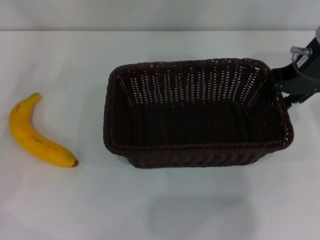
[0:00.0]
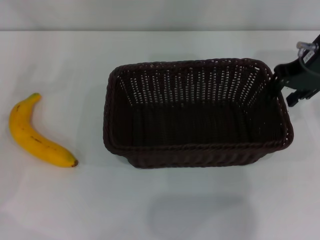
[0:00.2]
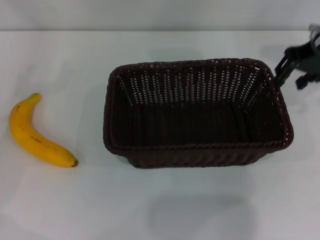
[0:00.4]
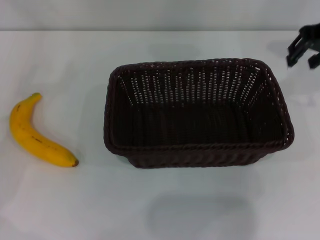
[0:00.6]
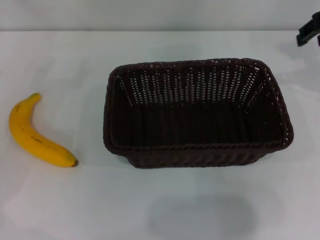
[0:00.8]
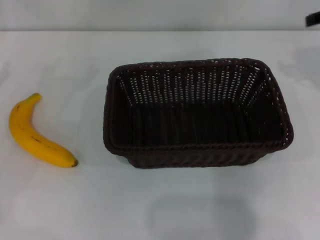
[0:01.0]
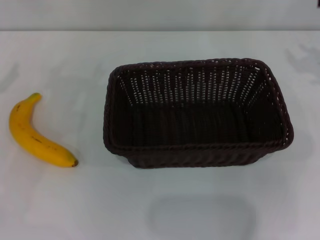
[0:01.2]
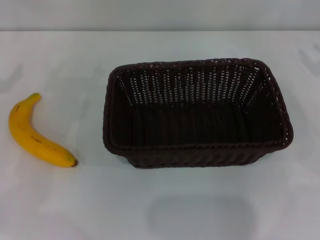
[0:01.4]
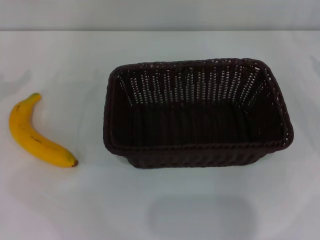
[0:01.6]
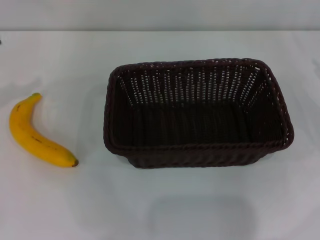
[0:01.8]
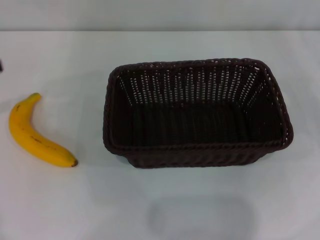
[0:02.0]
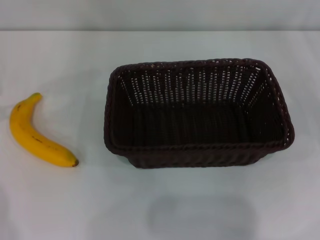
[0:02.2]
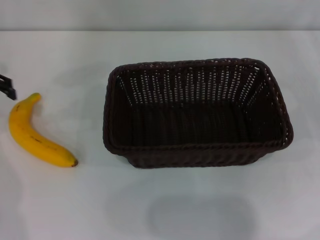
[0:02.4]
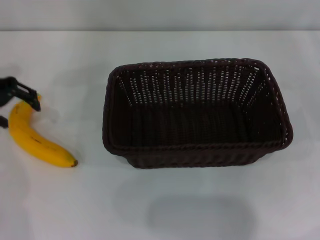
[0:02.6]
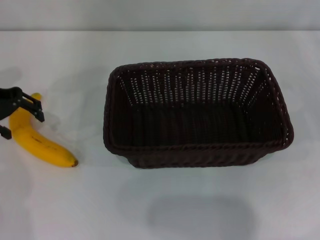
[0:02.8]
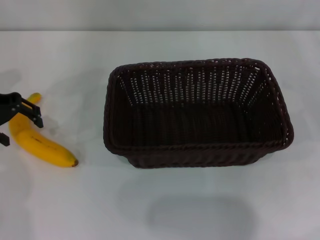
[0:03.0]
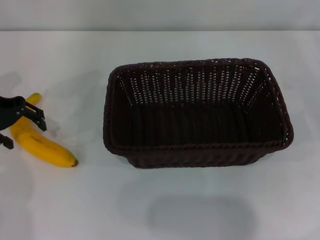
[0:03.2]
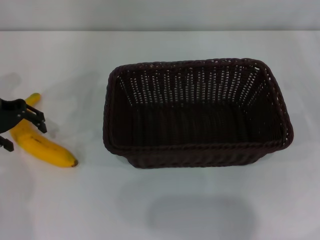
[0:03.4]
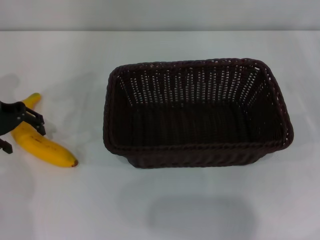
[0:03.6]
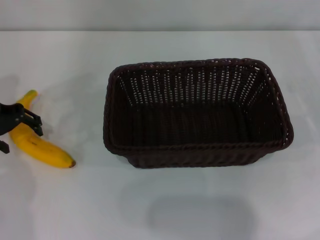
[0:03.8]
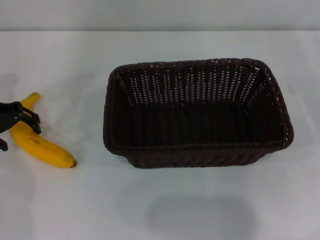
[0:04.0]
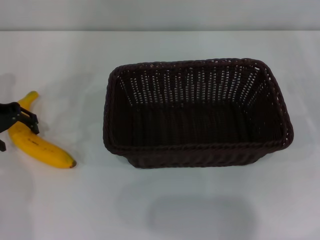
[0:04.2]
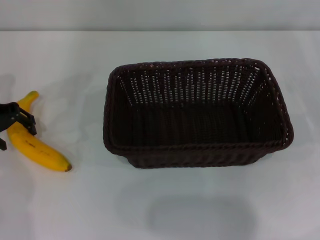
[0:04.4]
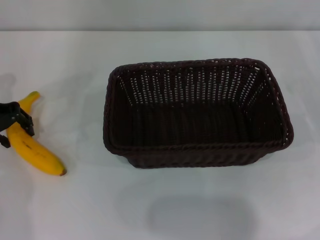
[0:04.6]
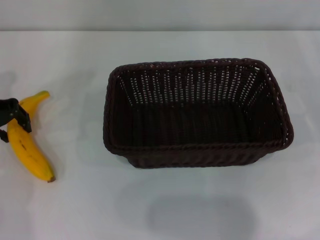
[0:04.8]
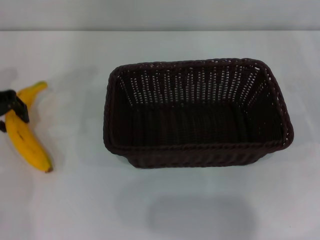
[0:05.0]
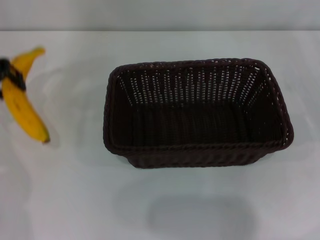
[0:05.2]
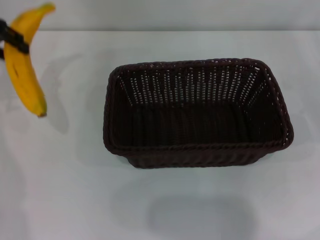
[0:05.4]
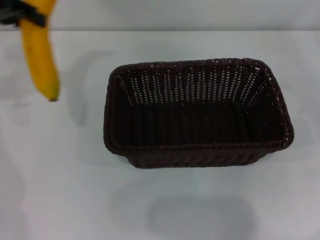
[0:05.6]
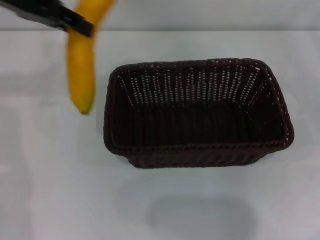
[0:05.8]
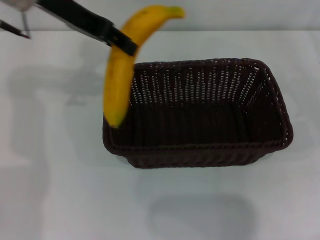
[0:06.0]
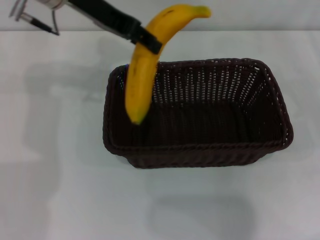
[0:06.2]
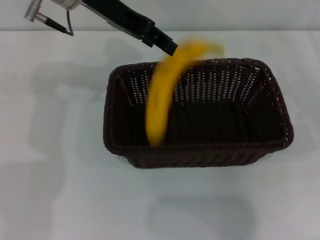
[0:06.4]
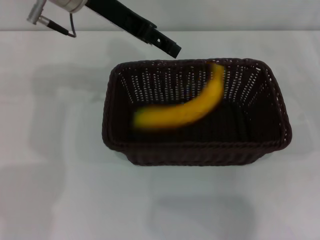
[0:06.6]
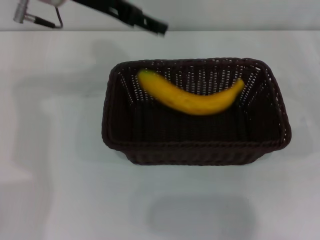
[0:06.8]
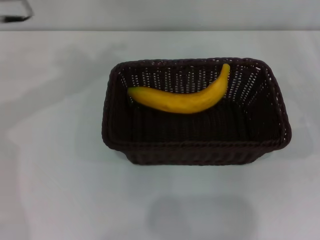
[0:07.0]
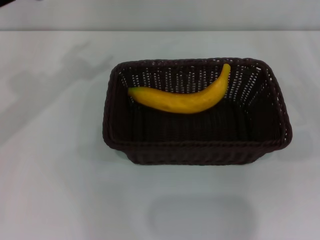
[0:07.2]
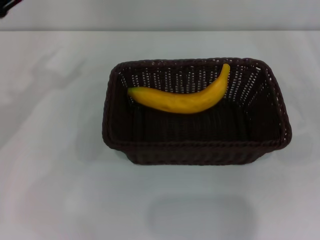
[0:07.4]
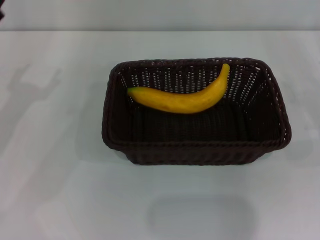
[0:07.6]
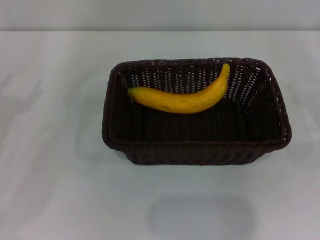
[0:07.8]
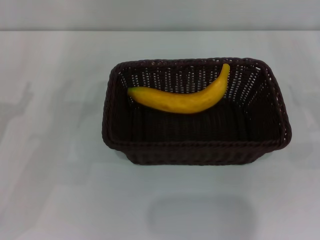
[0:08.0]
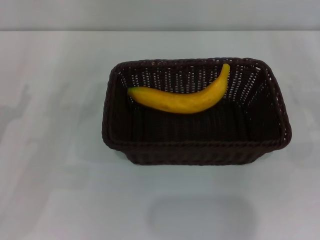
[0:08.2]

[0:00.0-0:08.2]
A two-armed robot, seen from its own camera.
Step, 0:00.4 to 0:05.0: Pick up the banana with the left gripper.
Step, 0:05.2 to 0:06.4: Place the banana into the dark basket with the left gripper.
0:00.0 to 0:01.6: The right gripper shifts roughly 20 cm to the right and downward.
0:01.6 to 0:03.2: The left gripper heads to the right and forward, covering about 10 cm.
0:03.2 to 0:05.0: The left gripper closes up.
0:05.0 to 0:06.6: The left gripper moves to the right and upward, roughly 20 cm.
0:06.6 to 0:08.2: The left gripper moves downward, to the left and backward, some 30 cm, and opens.

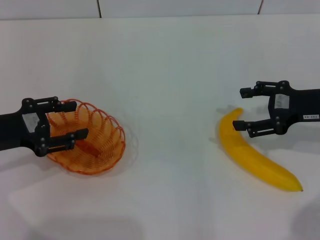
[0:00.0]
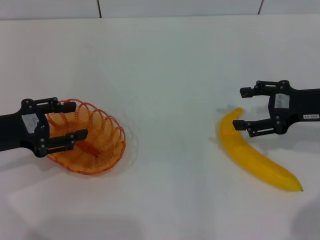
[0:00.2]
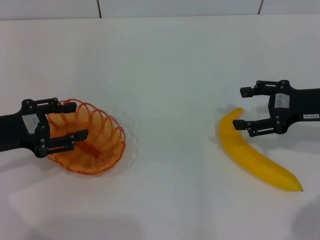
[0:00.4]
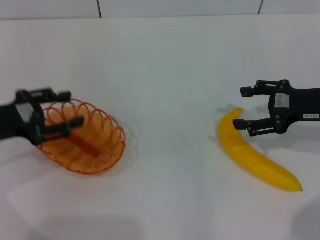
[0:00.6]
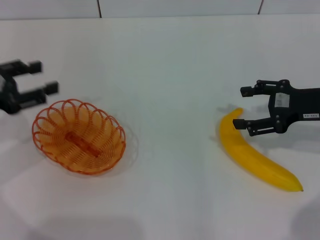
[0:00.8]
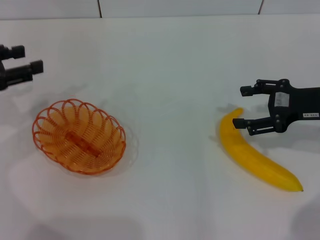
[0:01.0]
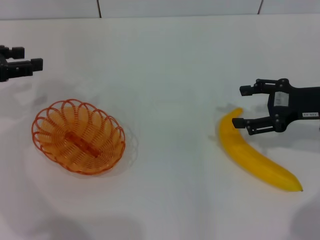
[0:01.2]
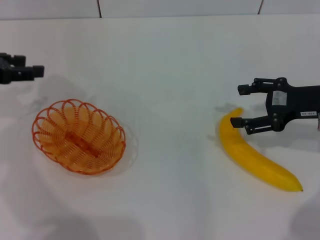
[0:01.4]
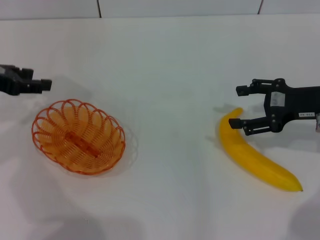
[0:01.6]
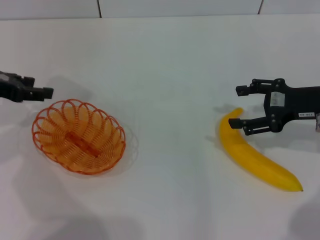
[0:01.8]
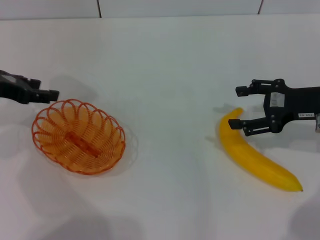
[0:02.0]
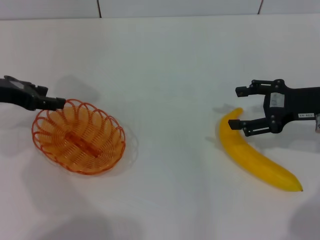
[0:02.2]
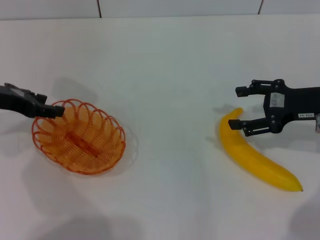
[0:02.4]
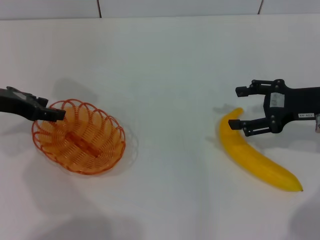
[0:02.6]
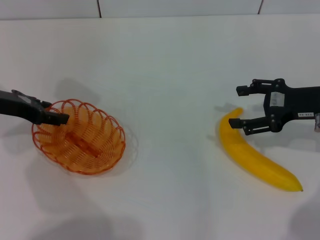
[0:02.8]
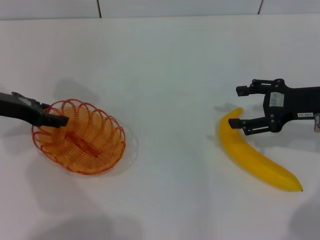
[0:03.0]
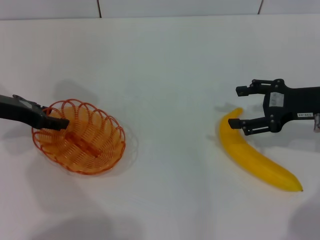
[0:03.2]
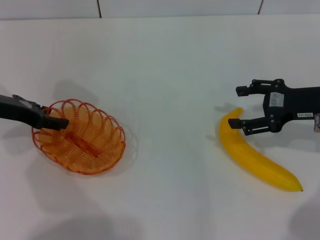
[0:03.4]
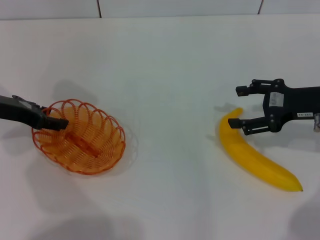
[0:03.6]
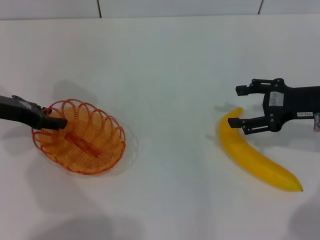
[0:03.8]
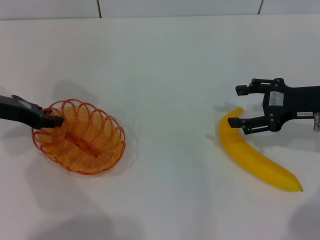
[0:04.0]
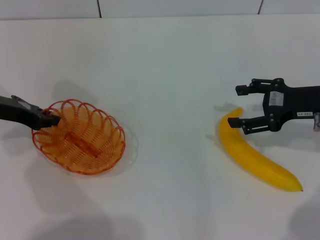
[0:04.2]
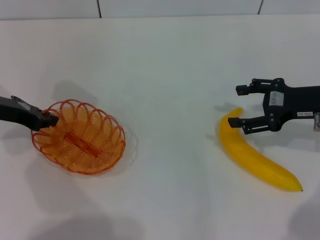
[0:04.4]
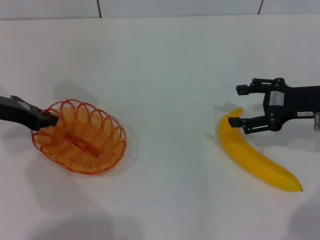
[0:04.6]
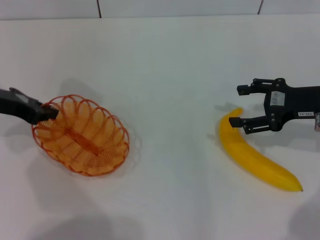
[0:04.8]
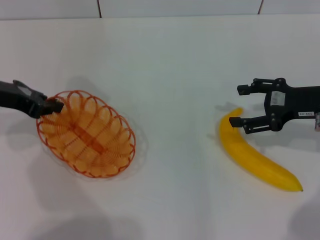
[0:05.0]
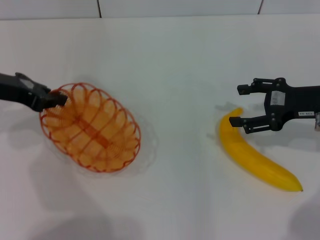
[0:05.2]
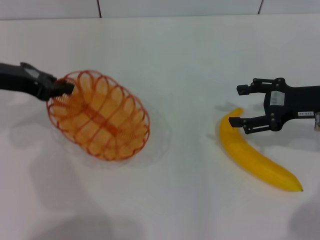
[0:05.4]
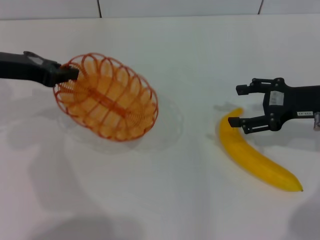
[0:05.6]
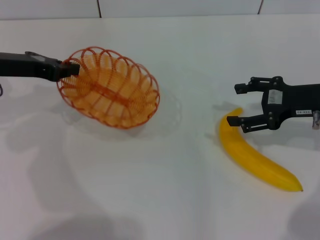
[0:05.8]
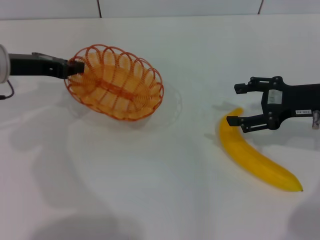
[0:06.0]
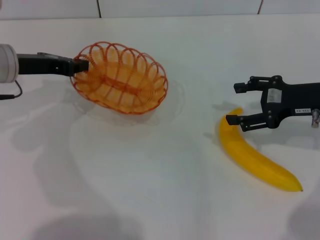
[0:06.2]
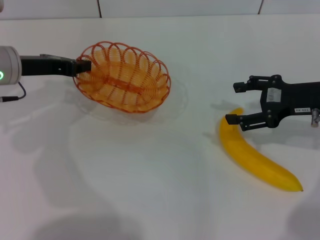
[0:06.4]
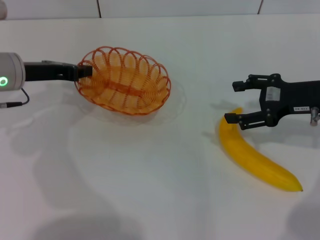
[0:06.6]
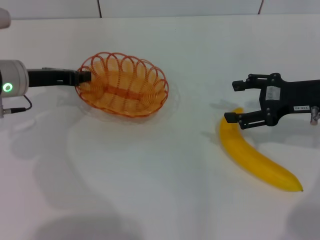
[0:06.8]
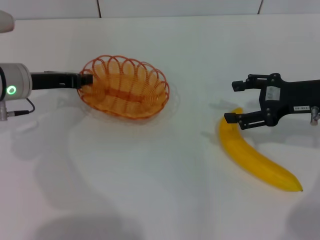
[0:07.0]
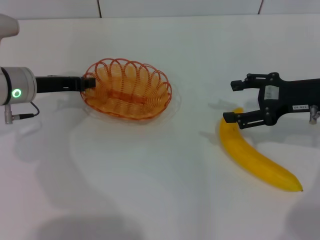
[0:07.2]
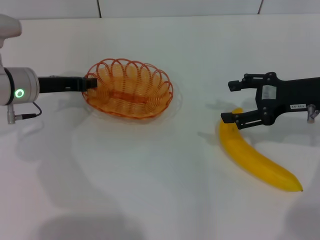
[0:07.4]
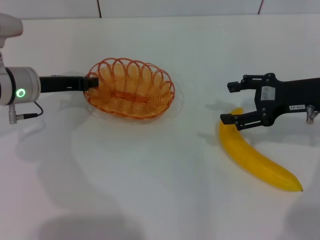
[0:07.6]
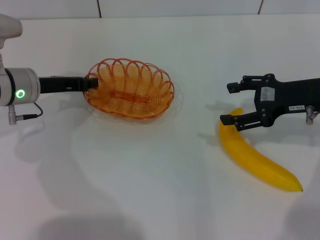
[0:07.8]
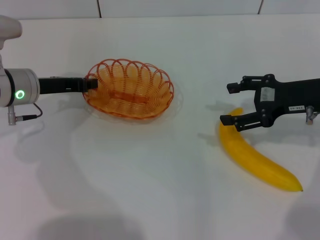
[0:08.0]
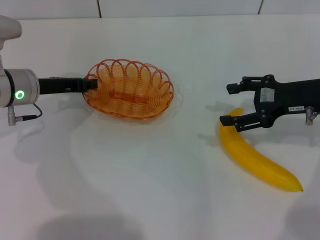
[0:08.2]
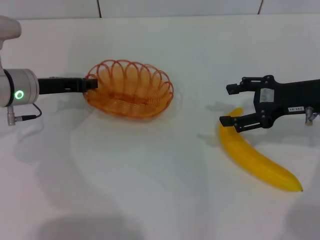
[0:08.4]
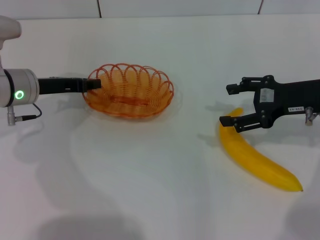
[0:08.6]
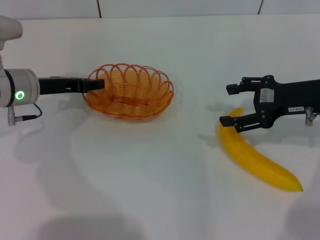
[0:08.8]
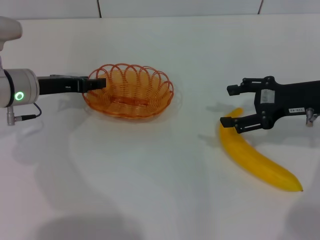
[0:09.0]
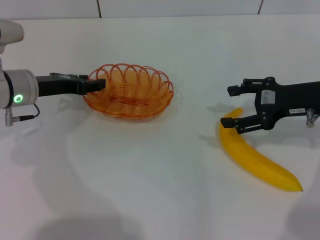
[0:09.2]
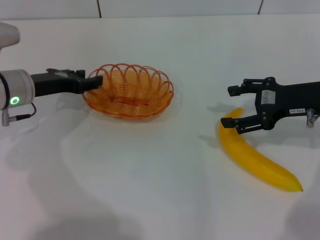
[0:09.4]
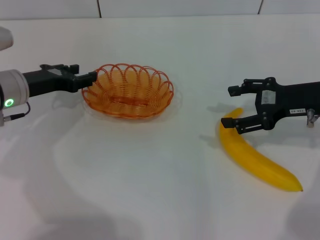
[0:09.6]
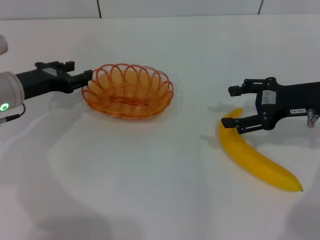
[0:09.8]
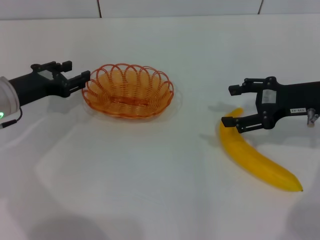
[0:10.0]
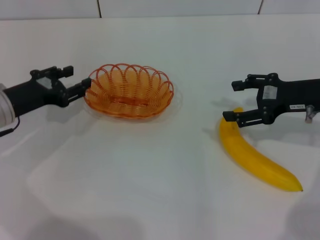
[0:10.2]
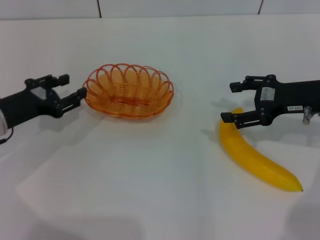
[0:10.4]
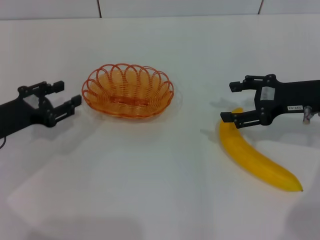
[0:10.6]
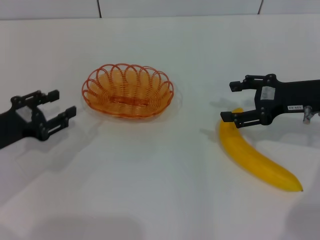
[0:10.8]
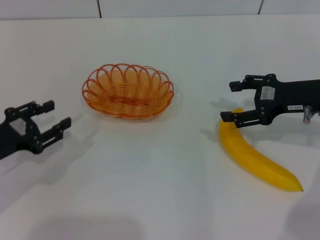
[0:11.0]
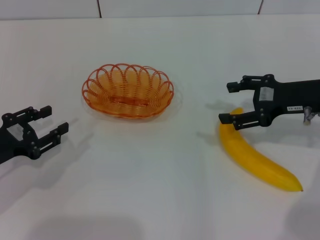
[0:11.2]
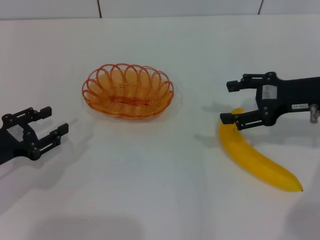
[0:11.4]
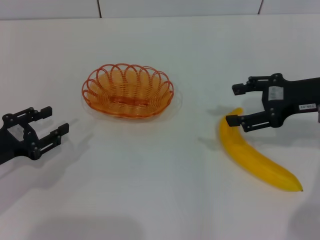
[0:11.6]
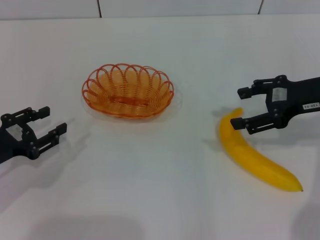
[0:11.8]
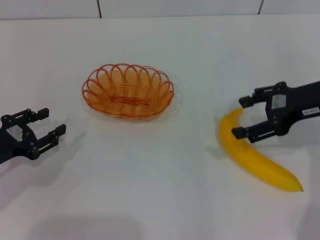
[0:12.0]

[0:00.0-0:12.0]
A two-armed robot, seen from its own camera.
Step, 0:00.0 to 0:05.2: Pick up the basket with the left gripper.
Step, 0:05.6 to 0:09.6: Place the basket in the center of view with the left gripper.
0:00.0 to 0:01.6: The left gripper shifts about 10 cm forward and upward.
0:01.6 to 0:03.0: The left gripper changes place by roughly 5 cm.
0:03.0 to 0:04.4: The left gripper closes its fingers.
0:06.0 to 0:07.6: The left gripper is displaced downward by approximately 5 cm.
0:07.6 to 0:09.0: The left gripper opens its fingers.
0:09.0 to 0:10.4: The left gripper is displaced backward by some 5 cm.
0:10.4 to 0:12.0: The left gripper travels backward by approximately 5 cm, while the right gripper moves upward, some 5 cm.

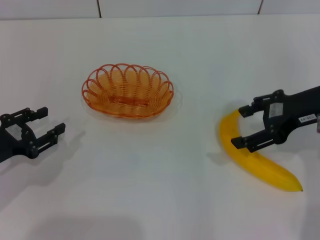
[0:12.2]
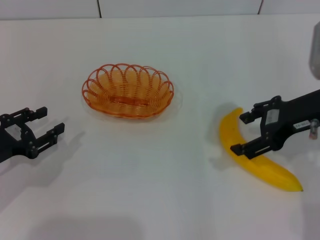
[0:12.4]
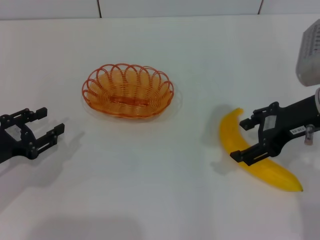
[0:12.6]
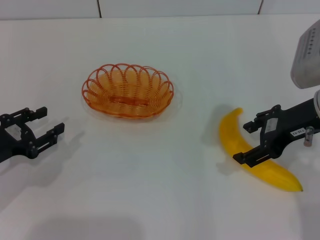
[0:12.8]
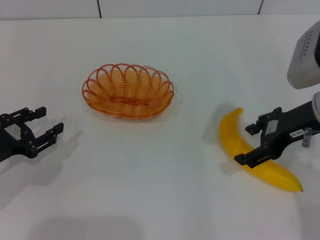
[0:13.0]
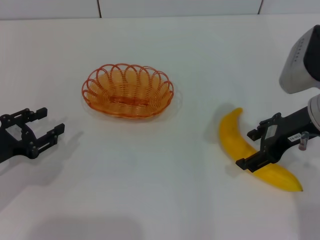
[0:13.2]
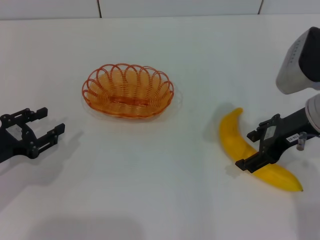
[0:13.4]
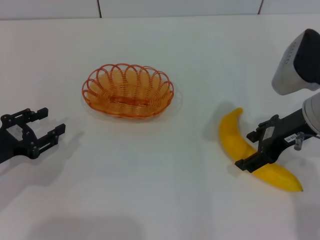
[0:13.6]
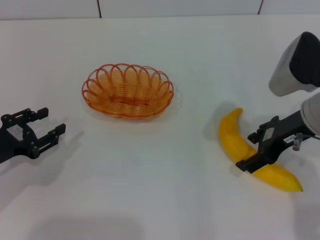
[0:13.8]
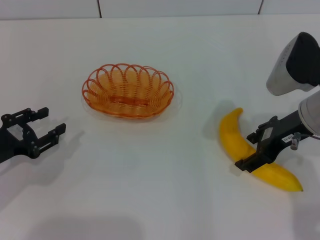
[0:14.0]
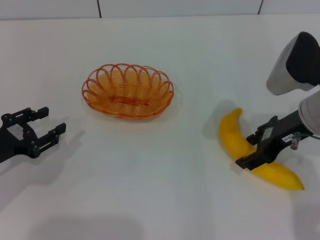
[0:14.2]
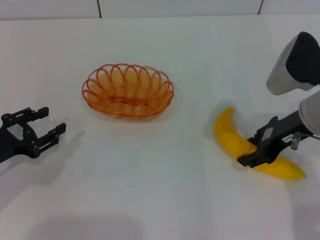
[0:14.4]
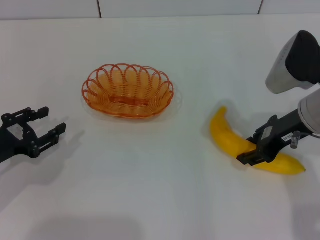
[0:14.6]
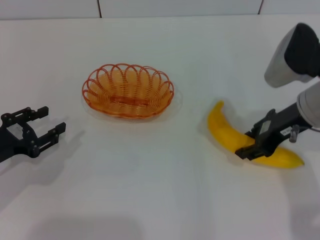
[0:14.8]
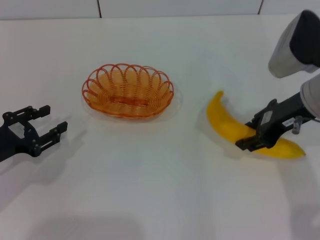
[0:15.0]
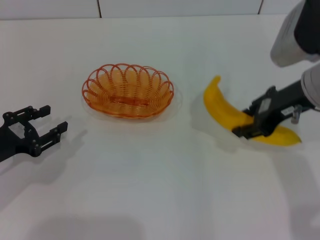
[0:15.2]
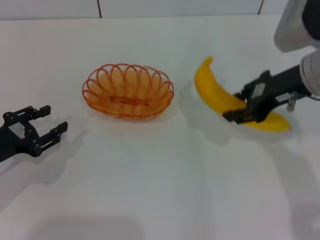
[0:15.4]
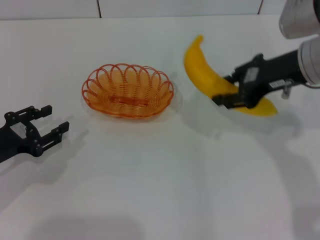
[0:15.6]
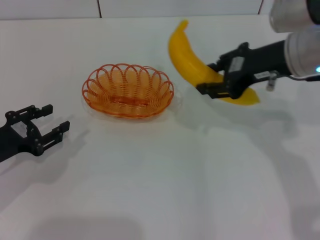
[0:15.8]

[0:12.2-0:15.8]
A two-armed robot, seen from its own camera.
Step, 0:12.2 to 0:15.0: Pick up the banana with the right gripper.
0:14.0 to 0:15.8: The right gripper is displaced upward by about 5 cm, and closes.
